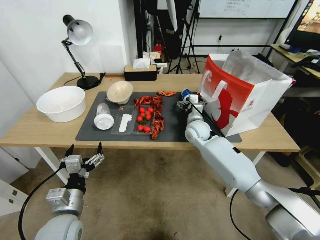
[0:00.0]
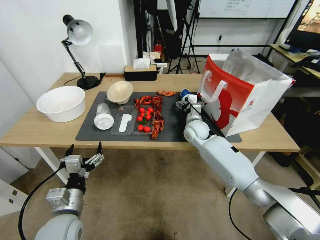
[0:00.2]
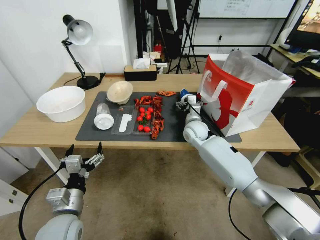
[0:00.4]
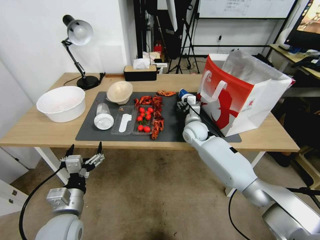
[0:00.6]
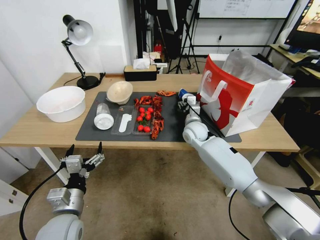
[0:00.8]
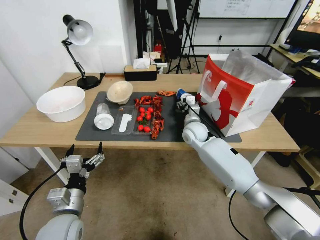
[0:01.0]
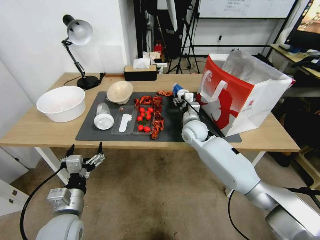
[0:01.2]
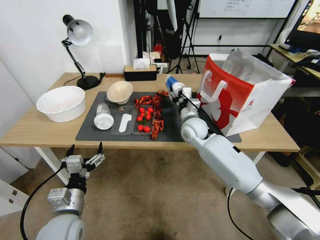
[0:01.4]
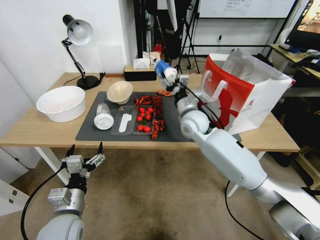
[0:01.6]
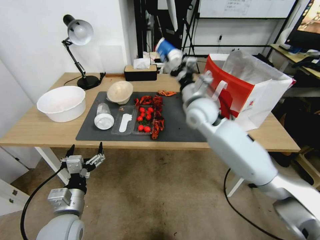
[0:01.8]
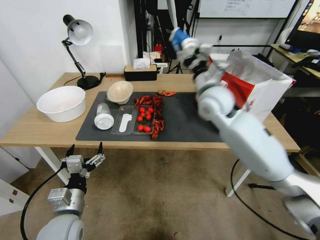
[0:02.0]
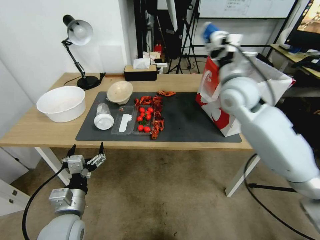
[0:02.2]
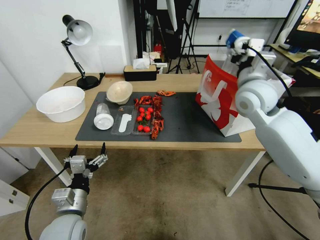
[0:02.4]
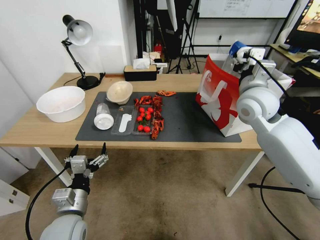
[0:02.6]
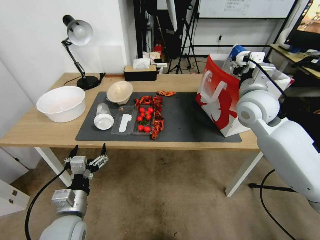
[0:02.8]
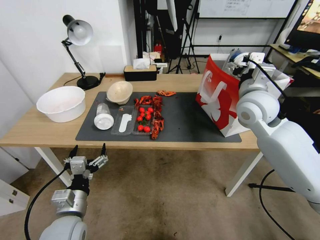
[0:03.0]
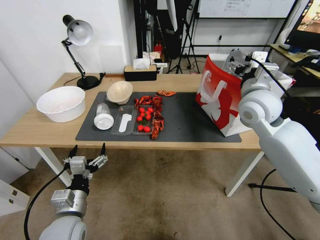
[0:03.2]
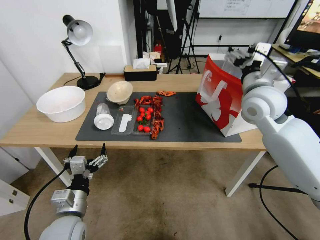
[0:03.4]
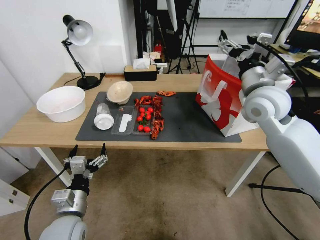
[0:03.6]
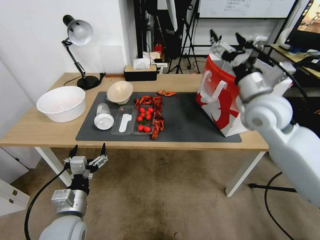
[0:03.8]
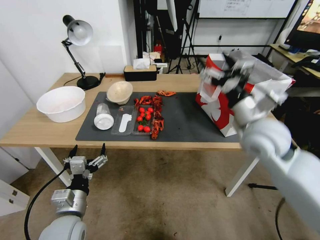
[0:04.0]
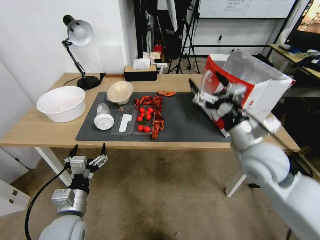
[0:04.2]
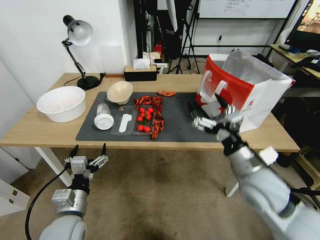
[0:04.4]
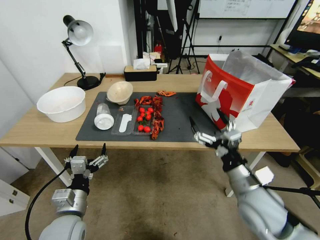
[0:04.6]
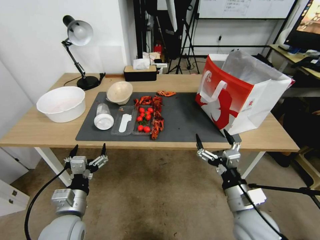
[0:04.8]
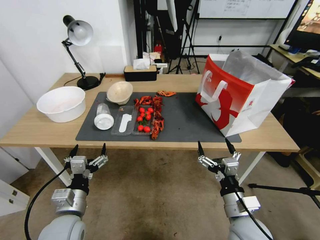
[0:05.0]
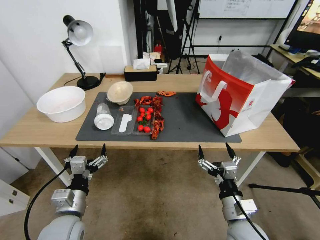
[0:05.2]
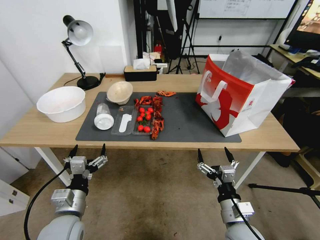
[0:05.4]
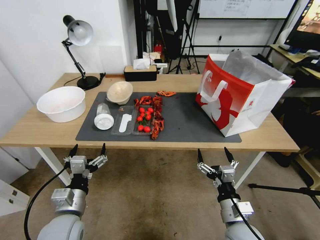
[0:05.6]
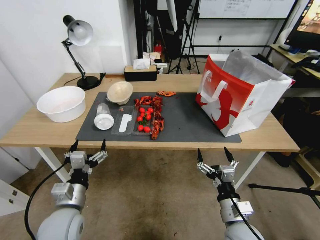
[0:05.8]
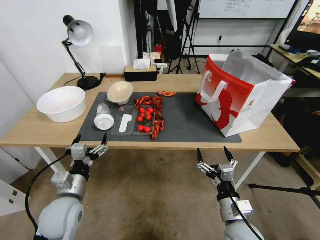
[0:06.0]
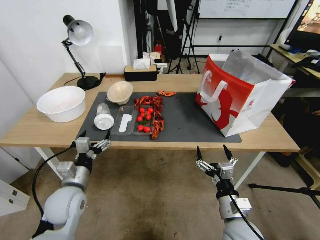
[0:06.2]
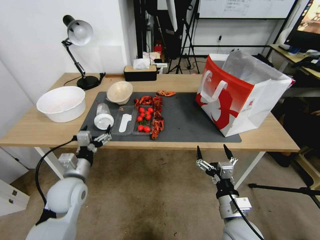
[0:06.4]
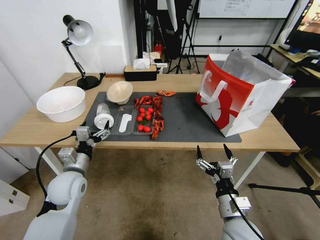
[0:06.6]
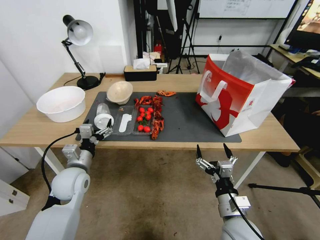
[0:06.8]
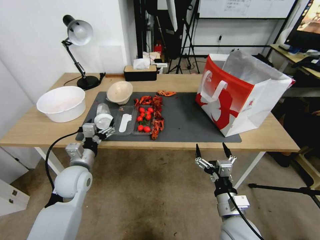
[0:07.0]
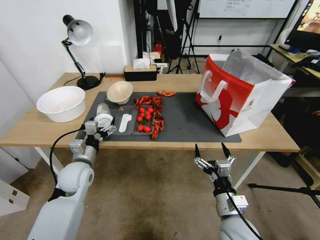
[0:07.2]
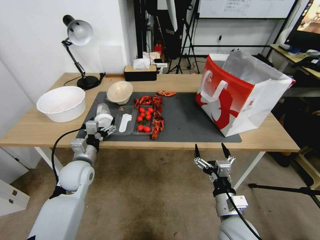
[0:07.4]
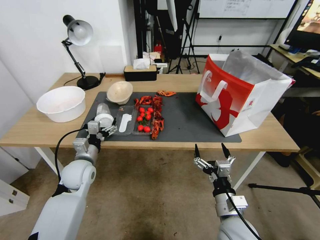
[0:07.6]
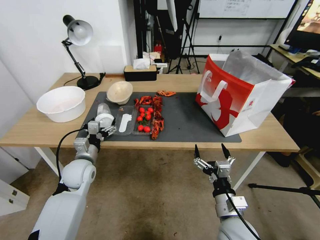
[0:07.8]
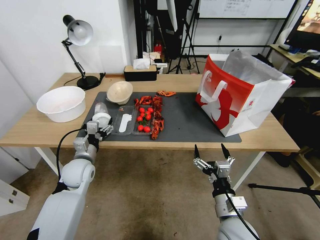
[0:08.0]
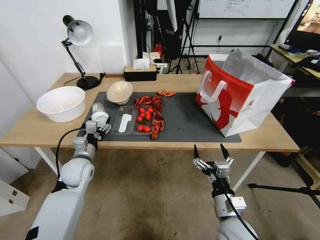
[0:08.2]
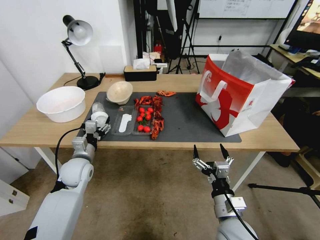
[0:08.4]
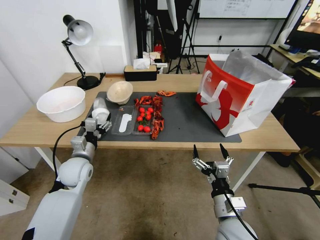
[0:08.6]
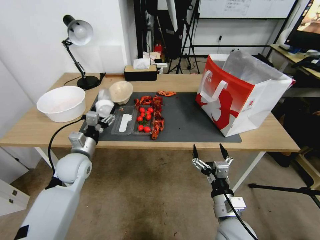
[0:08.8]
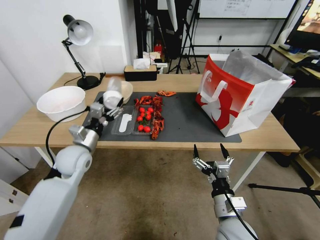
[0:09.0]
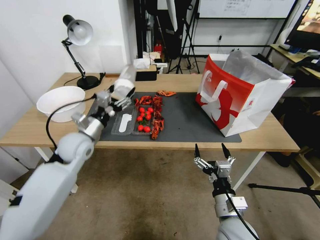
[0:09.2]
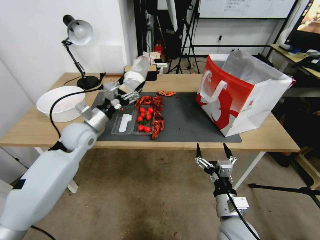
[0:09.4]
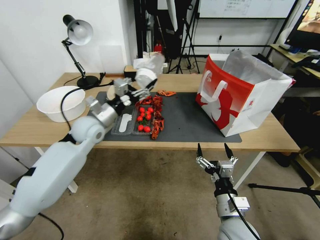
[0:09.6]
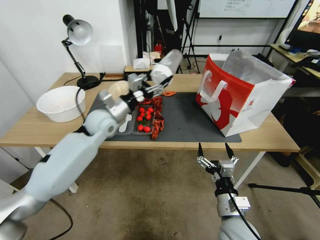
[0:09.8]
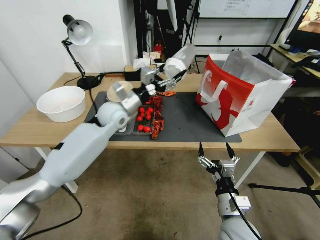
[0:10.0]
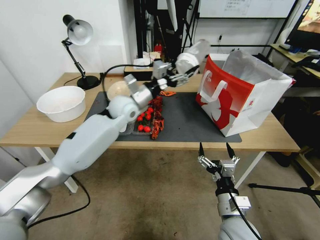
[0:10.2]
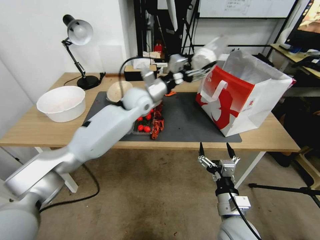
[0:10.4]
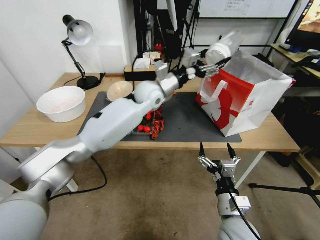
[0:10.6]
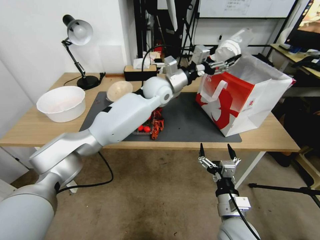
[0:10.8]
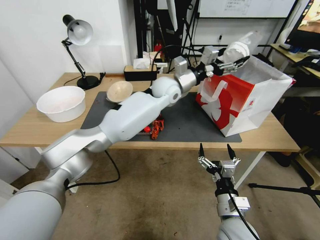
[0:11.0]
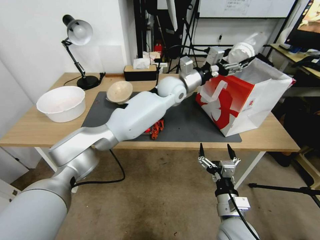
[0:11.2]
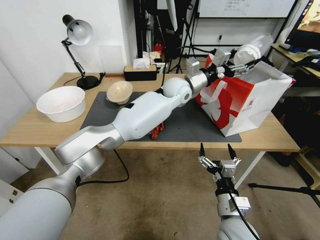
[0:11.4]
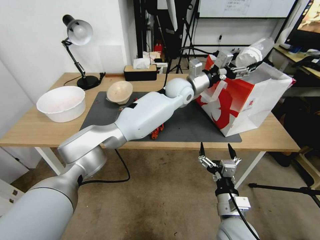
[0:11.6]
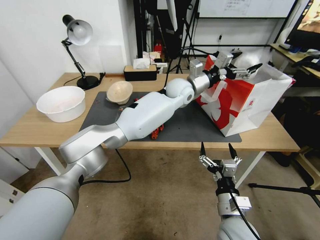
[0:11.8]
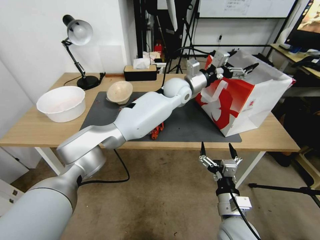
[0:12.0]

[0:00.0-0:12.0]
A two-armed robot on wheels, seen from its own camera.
0:00.0 to 0:01.6: The right gripper heads upward, covering approximately 10 cm, and closes.
0:01.6 to 0:03.0: The right gripper shifts approximately 20 cm to the right and upward.
0:03.0 to 0:04.4: The right gripper moves backward and downward, about 20 cm.
0:04.4 to 0:06.0: The right gripper shifts some 20 cm downward and backward.
0:06.0 to 0:07.6: The left gripper is displaced forward by about 10 cm.
0:07.6 to 0:09.0: The left gripper moves upward, some 5 cm.
0:09.0 to 0:10.4: The left gripper heads to the right, forward and upward, covering approximately 30 cm.
0:10.4 to 0:12.0: The left gripper moves to the right, some 15 cm.

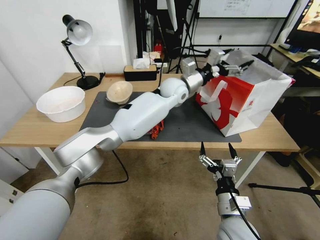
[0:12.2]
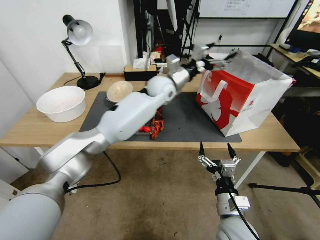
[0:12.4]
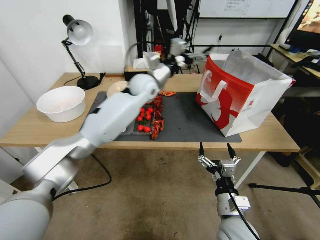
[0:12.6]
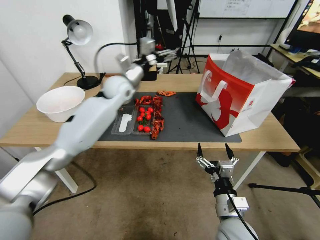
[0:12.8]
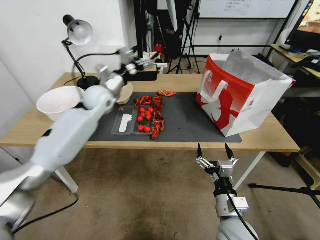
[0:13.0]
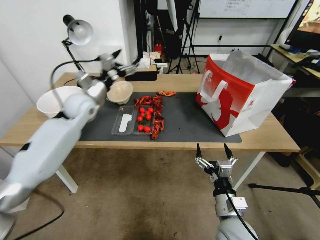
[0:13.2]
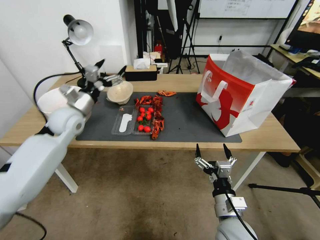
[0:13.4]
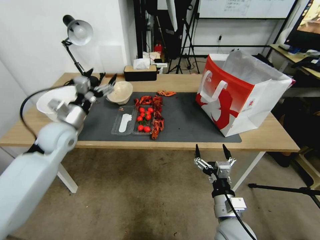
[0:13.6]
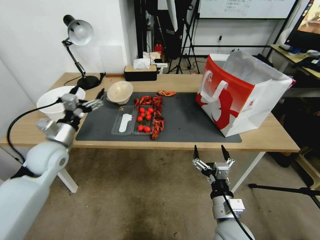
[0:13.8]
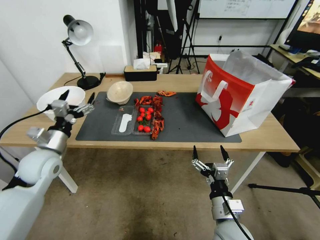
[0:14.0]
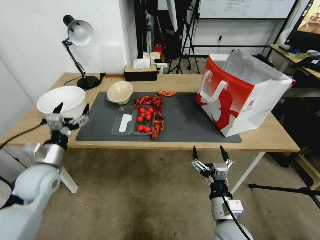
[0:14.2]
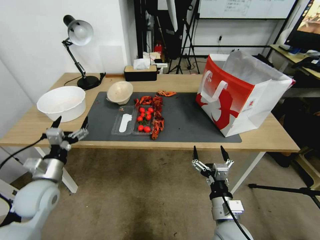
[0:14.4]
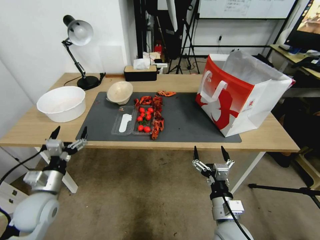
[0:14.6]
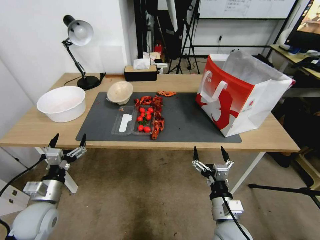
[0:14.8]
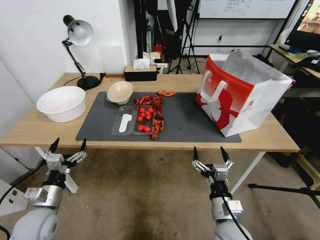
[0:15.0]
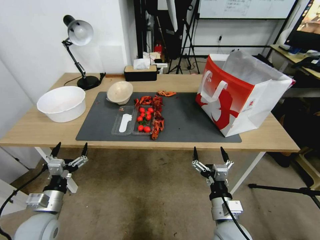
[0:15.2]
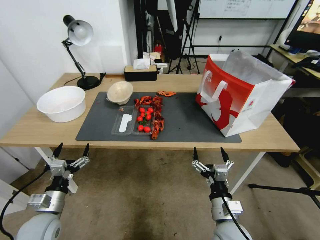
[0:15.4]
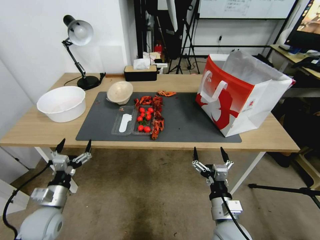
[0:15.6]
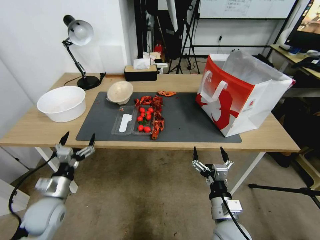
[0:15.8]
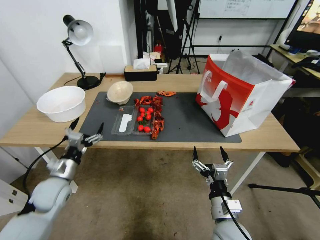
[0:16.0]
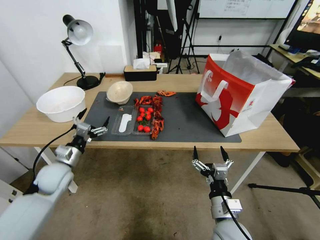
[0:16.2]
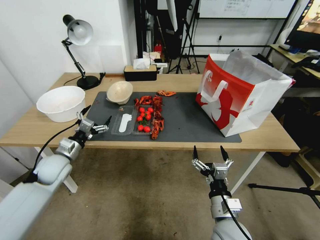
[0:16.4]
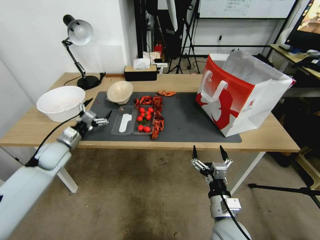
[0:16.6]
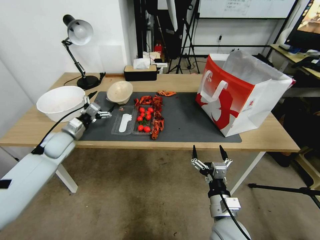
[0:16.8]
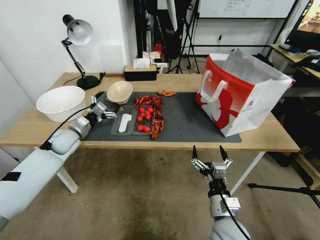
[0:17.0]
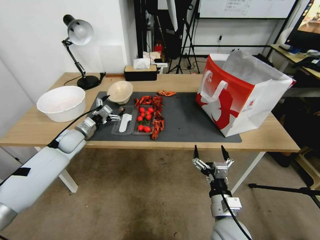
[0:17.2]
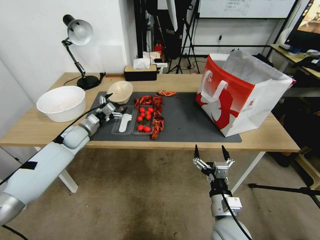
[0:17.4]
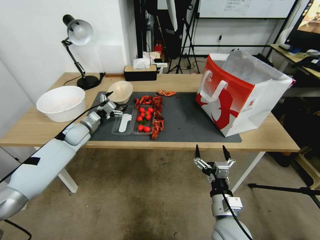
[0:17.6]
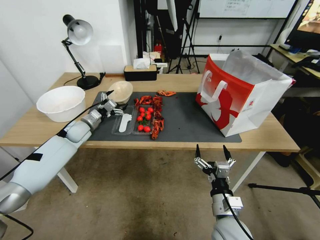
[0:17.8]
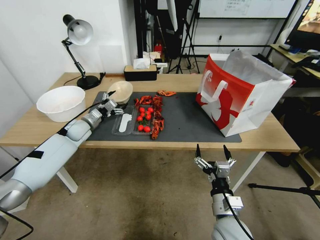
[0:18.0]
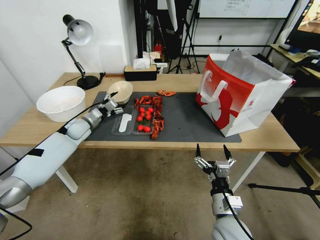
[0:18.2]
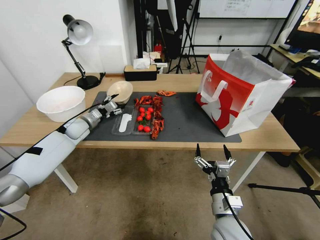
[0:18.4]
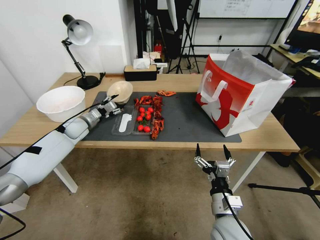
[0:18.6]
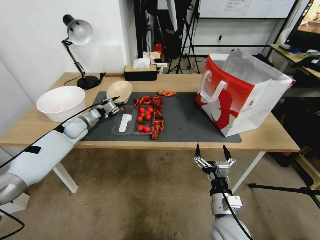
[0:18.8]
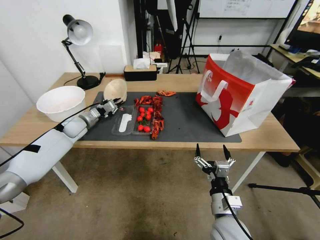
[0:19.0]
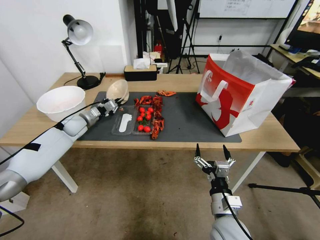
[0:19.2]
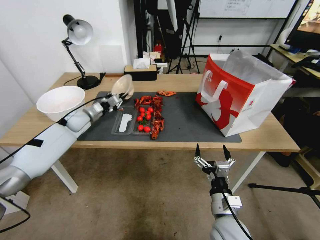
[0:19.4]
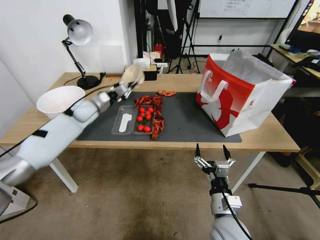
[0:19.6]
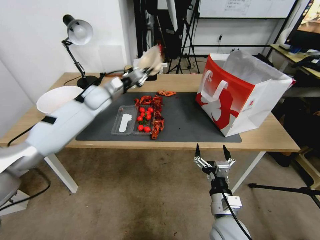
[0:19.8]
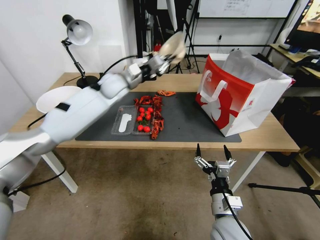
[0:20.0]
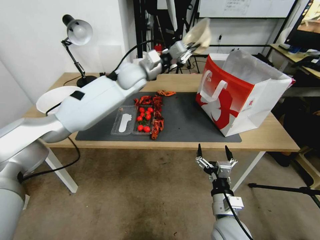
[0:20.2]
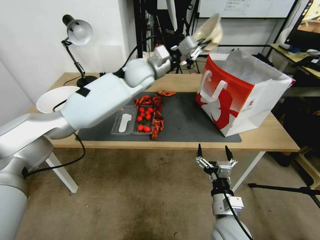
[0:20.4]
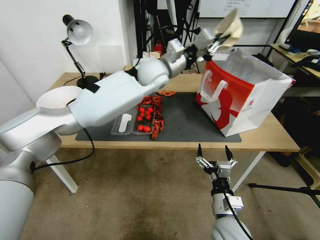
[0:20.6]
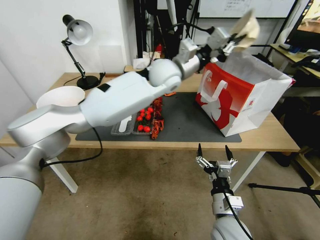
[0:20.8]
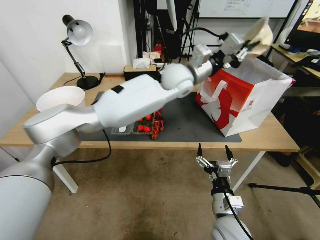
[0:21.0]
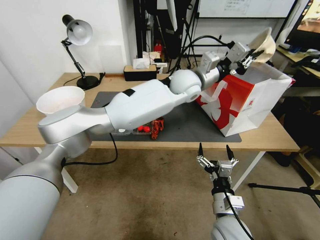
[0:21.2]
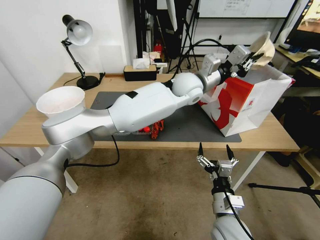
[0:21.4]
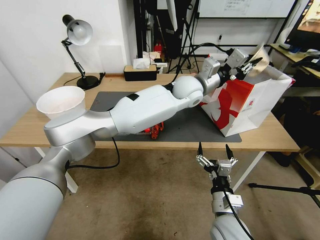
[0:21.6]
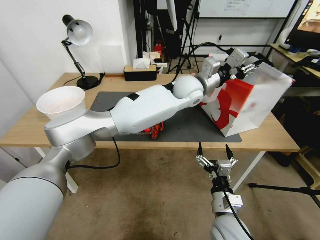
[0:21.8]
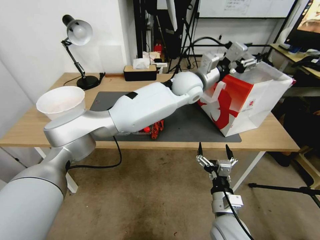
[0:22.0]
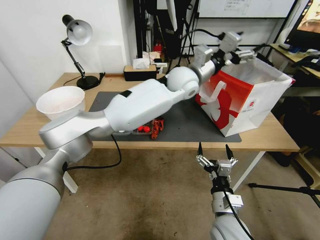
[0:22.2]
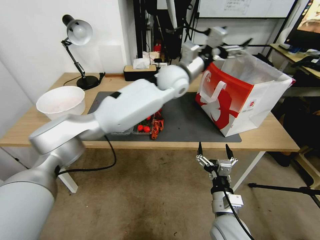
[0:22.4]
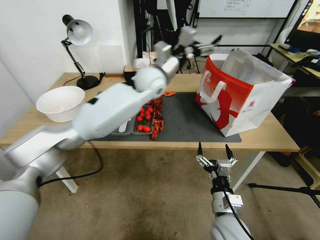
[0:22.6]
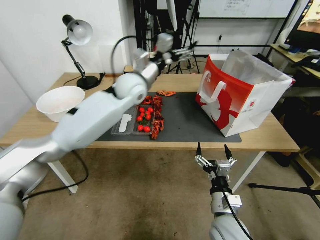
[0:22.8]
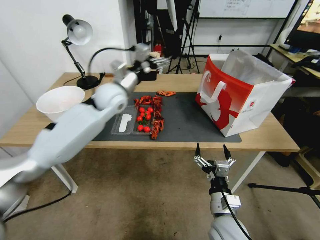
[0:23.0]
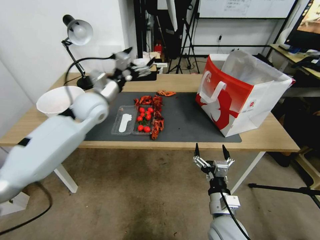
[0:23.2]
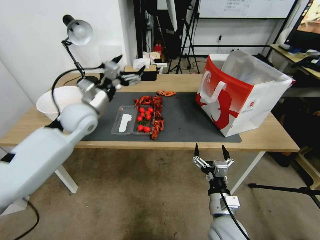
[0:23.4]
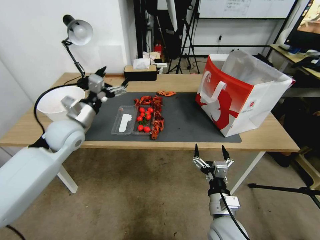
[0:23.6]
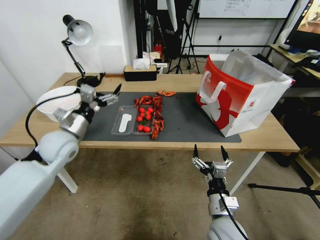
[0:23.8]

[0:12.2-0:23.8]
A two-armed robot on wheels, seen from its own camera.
0:12.2 to 0:13.6: The left gripper travels to the left and backward by some 40 cm.
0:13.6 to 0:15.0: The left gripper travels backward and downward by roughly 25 cm.
0:15.0 to 0:16.6: The left gripper goes approximately 20 cm forward.
0:16.6 to 0:18.0: The left gripper goes some 10 cm forward.
0:18.0 to 0:19.4: The left gripper closes up.
0:19.4 to 0:21.0: The left gripper heads to the right and upward, covering some 50 cm.
0:21.0 to 0:22.4: The left gripper opens.
0:22.4 to 0:23.8: The left gripper is displaced to the left and backward by some 35 cm.
